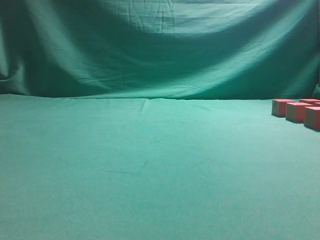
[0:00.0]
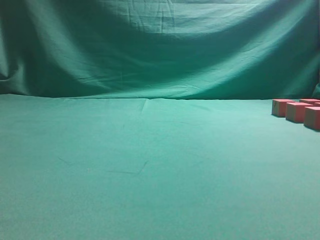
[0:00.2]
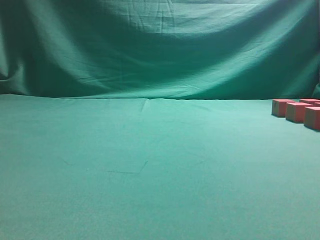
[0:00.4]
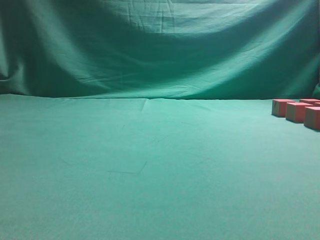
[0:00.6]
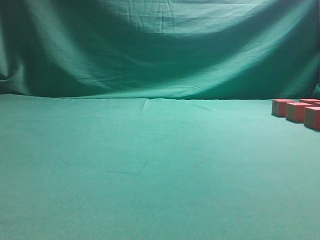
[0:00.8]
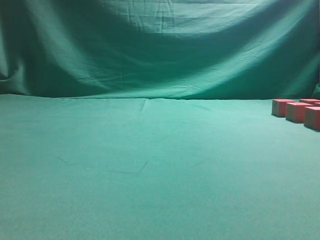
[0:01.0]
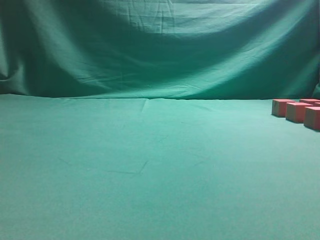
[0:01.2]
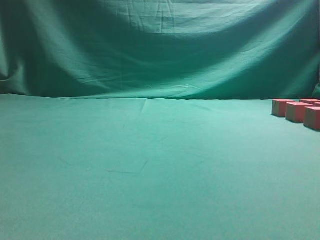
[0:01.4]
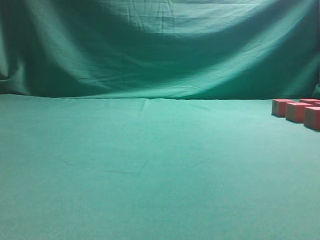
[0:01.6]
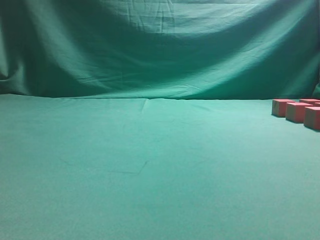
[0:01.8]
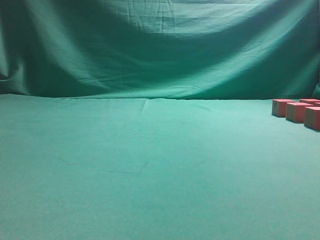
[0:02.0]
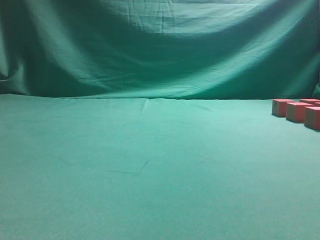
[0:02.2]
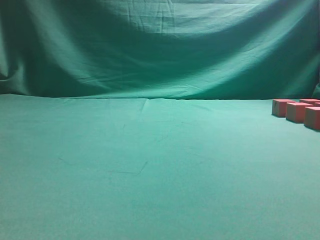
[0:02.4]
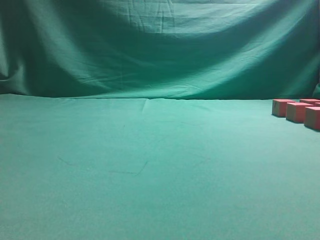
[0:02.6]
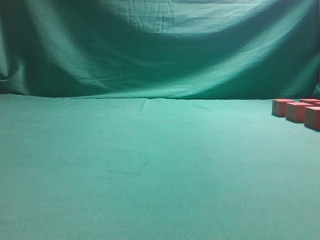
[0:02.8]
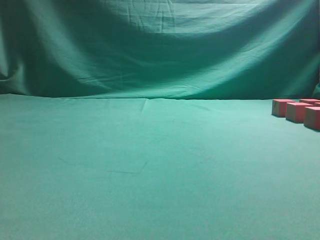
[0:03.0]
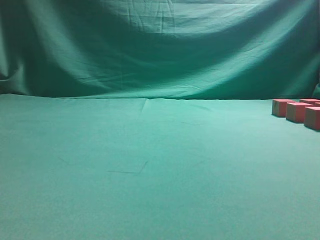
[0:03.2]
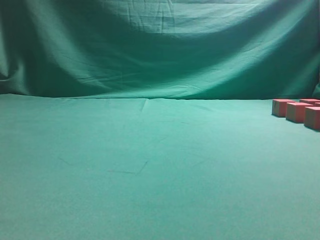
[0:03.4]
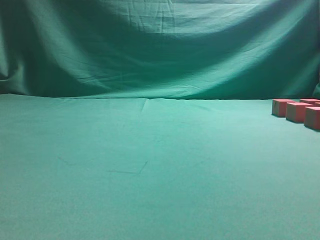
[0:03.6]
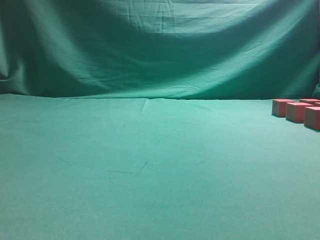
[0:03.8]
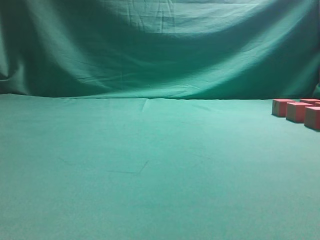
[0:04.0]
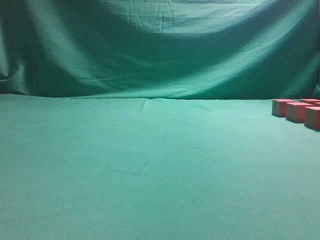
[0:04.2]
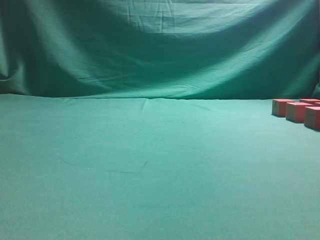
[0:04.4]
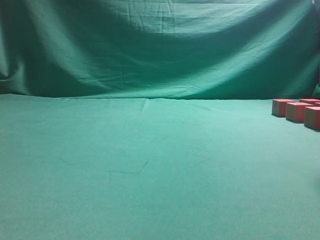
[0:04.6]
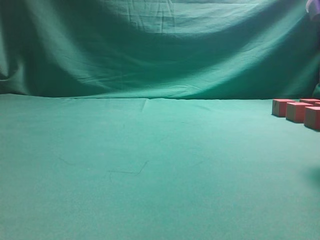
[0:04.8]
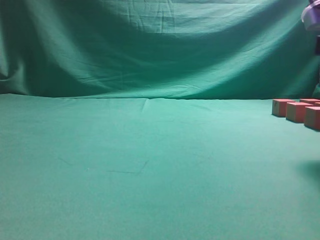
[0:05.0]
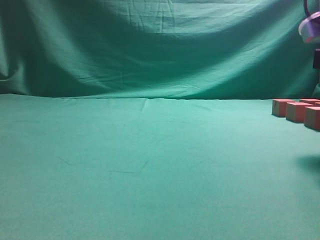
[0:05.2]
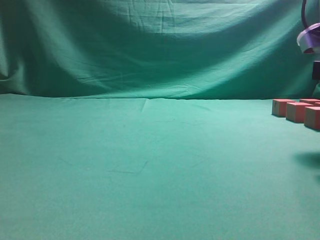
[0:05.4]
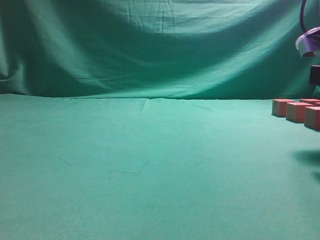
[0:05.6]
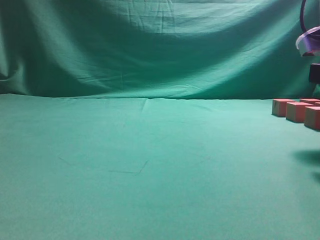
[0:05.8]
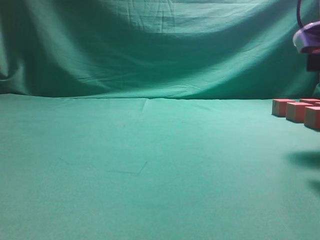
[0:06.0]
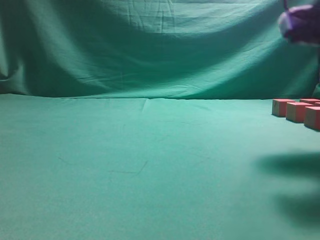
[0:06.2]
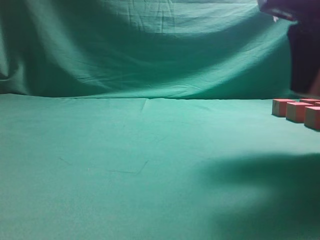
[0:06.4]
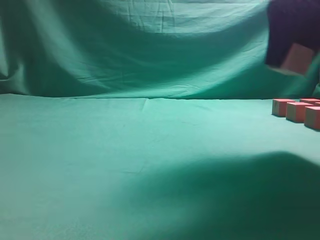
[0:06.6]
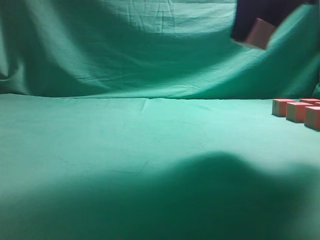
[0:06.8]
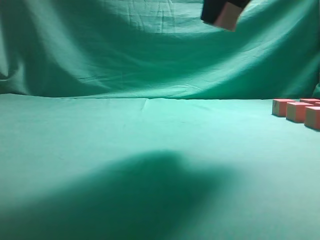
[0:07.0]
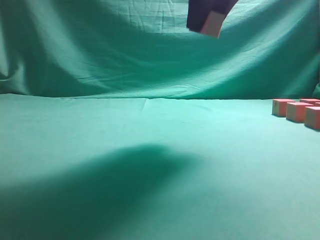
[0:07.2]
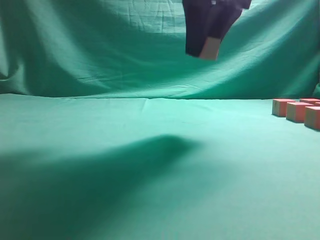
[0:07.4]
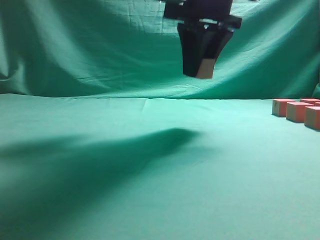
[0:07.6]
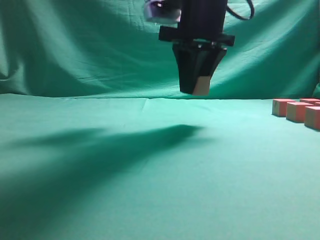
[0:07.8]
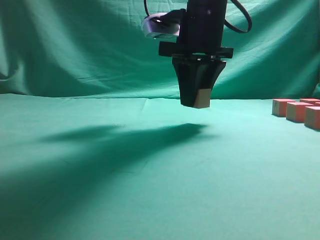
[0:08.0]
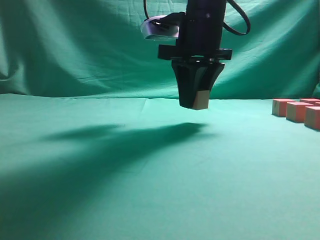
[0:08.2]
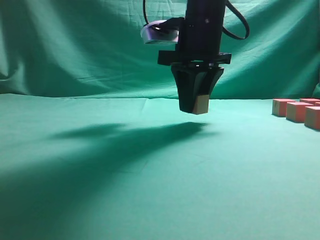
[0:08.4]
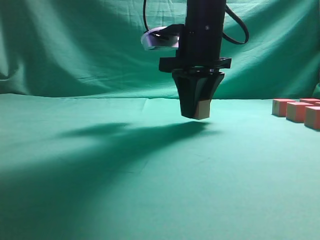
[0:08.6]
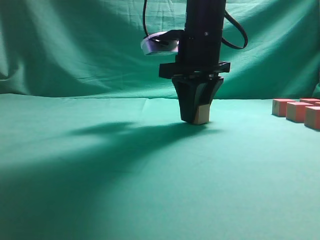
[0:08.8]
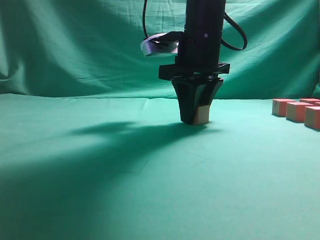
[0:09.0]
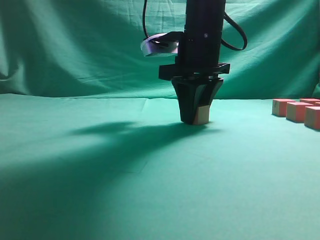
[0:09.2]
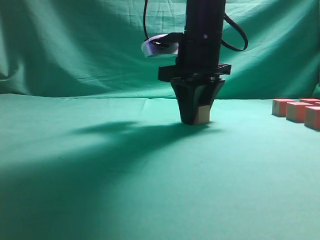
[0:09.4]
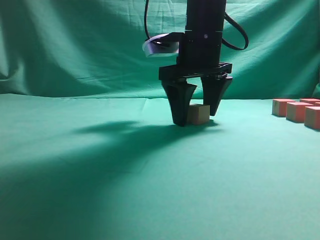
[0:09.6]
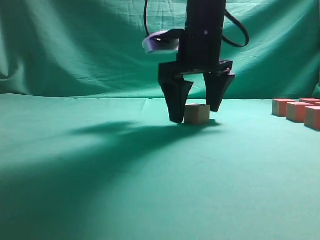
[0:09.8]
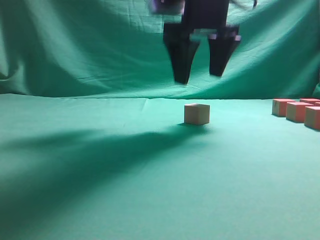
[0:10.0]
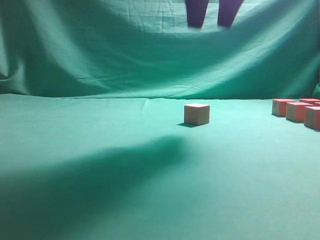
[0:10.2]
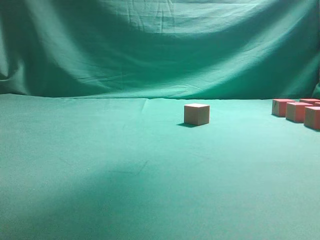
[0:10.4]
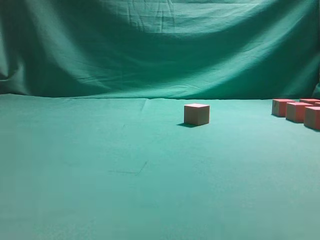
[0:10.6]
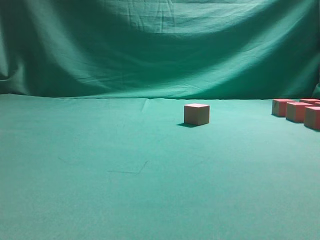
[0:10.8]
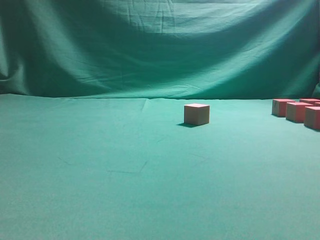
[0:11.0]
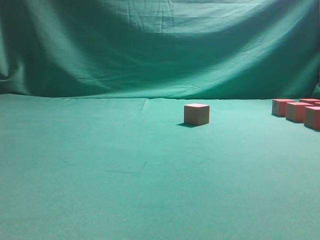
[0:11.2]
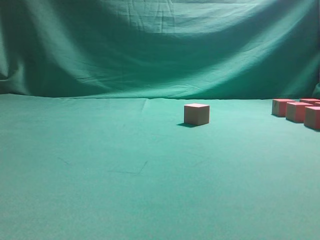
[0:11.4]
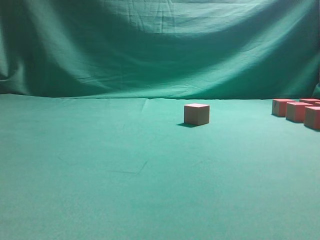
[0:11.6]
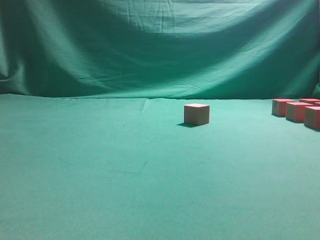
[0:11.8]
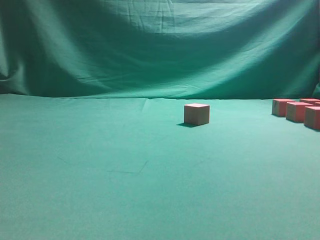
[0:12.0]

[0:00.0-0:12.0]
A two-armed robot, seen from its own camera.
Task of the whole recording: pick up the multiple cubes in two columns one by one and place them in another position on the table.
Step, 0:00.0 to 0:06.2: Pick up the block on the table.
Step, 0:06.6 to 0:10.0: Place the block at the correct position to assemble the letter S.
0:04.4 to 0:06.0: The right gripper heads downward, covering approximately 5 cm.
0:06.0 to 0:07.6: The right gripper heads to the left, forward and upward, covering roughly 20 cm.
0:07.6 to 0:09.0: The right gripper is displaced downward by some 5 cm.
0:09.0 to 0:10.4: The right gripper heads upward, covering approximately 20 cm, and opens up.
0:10.4 to 0:12.0: The right gripper is displaced to the right, downward and backward by some 25 cm.

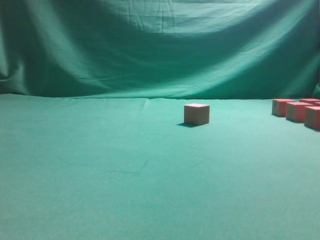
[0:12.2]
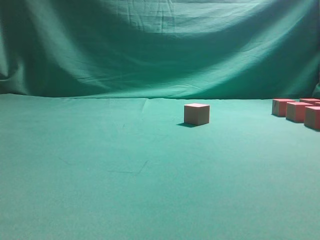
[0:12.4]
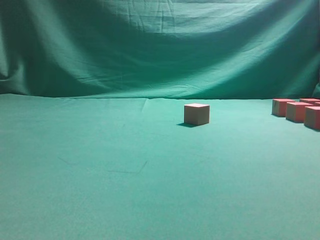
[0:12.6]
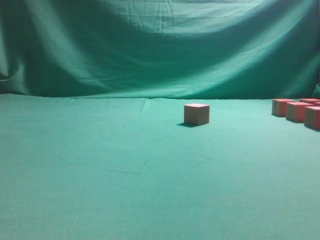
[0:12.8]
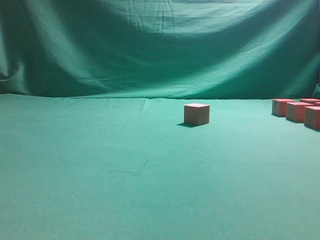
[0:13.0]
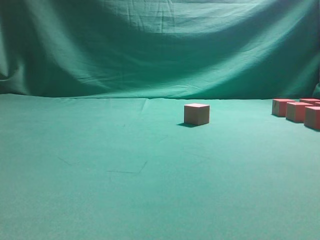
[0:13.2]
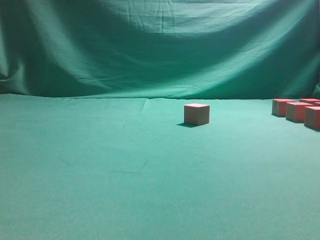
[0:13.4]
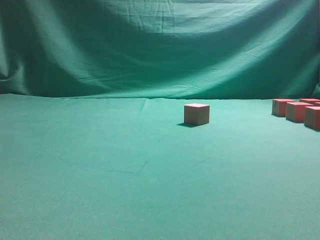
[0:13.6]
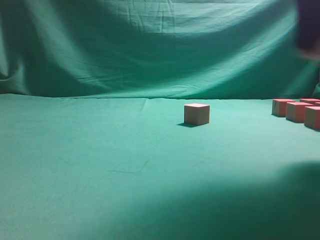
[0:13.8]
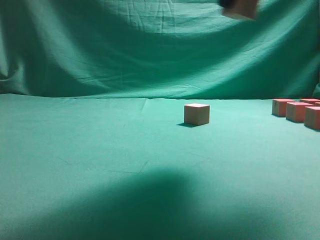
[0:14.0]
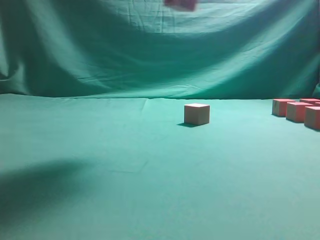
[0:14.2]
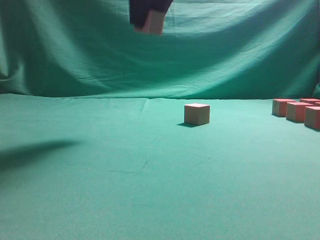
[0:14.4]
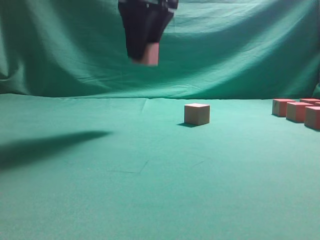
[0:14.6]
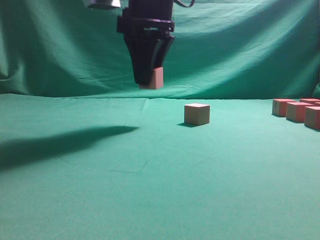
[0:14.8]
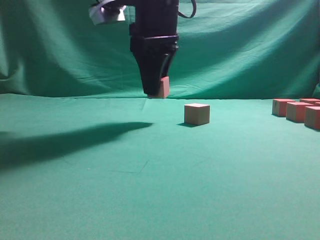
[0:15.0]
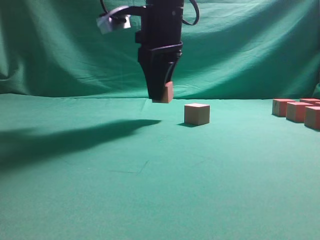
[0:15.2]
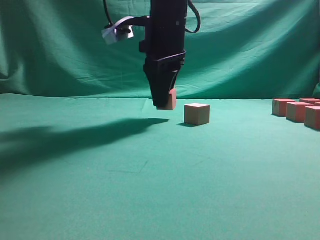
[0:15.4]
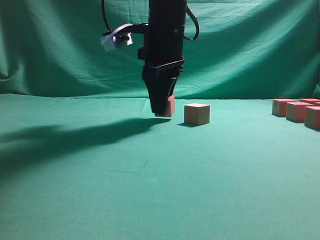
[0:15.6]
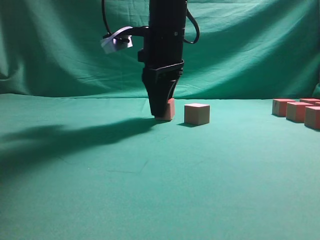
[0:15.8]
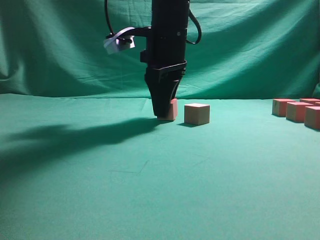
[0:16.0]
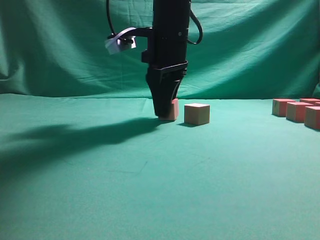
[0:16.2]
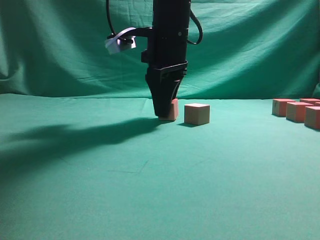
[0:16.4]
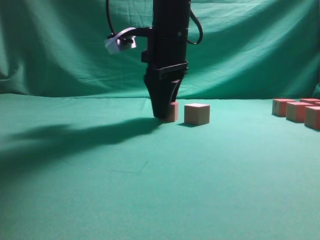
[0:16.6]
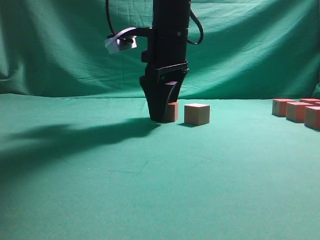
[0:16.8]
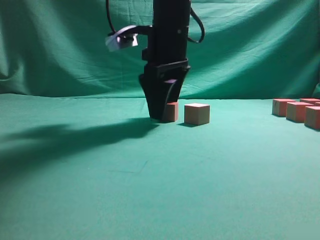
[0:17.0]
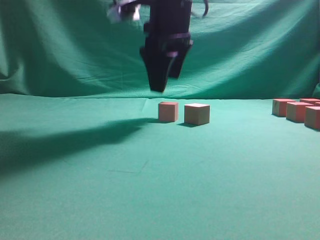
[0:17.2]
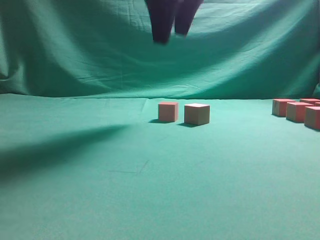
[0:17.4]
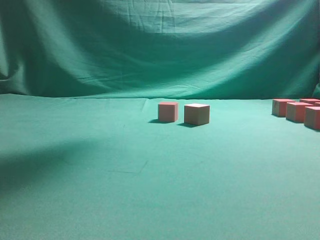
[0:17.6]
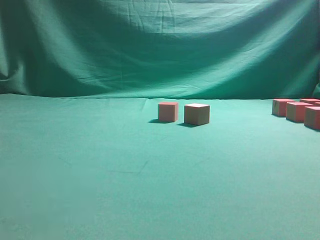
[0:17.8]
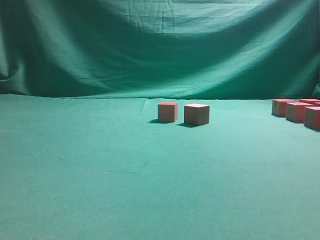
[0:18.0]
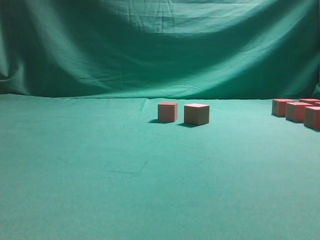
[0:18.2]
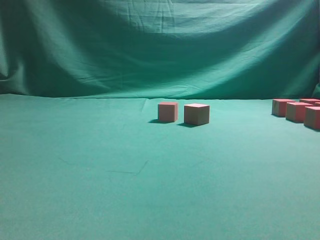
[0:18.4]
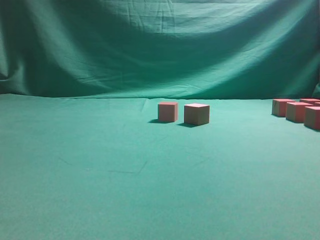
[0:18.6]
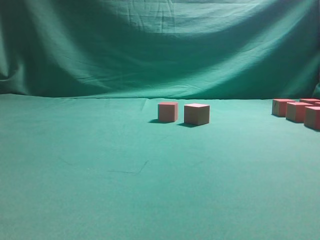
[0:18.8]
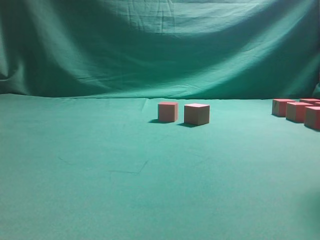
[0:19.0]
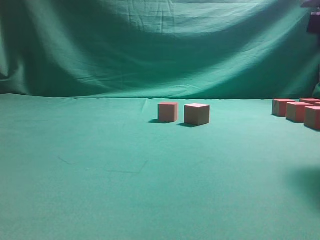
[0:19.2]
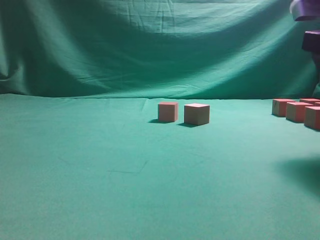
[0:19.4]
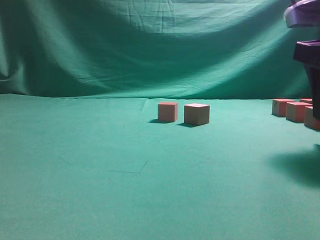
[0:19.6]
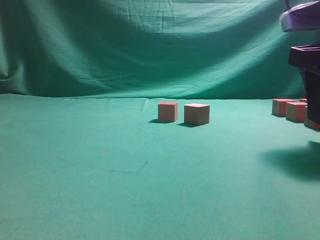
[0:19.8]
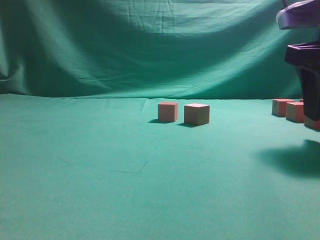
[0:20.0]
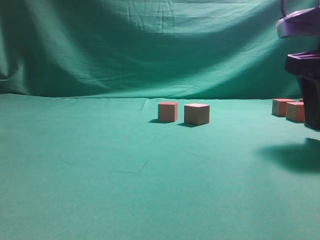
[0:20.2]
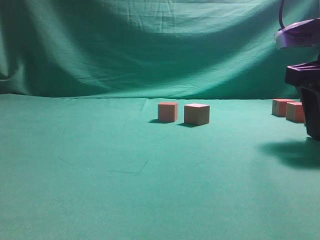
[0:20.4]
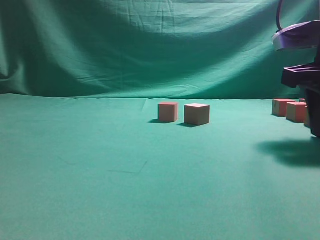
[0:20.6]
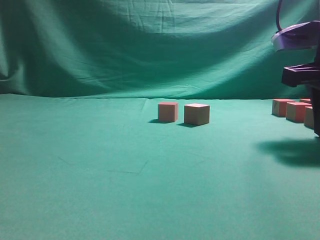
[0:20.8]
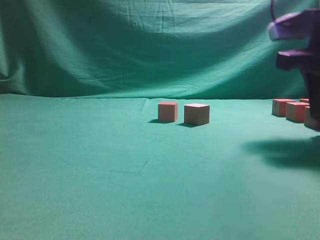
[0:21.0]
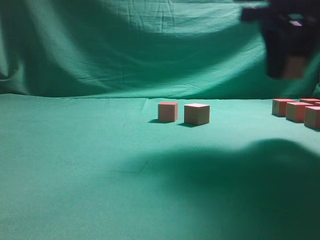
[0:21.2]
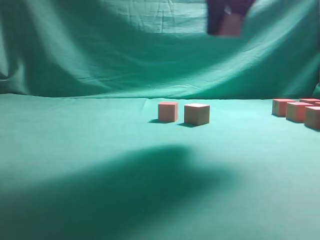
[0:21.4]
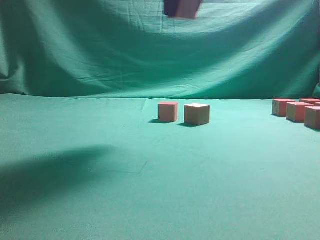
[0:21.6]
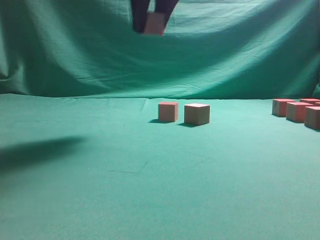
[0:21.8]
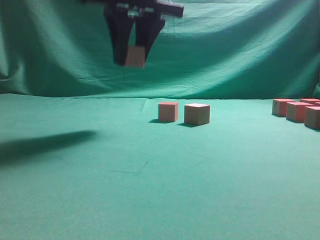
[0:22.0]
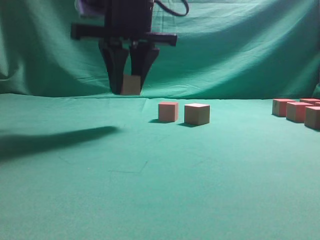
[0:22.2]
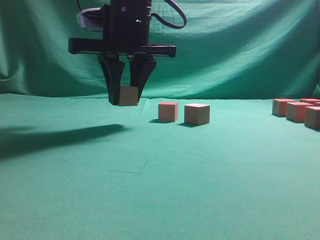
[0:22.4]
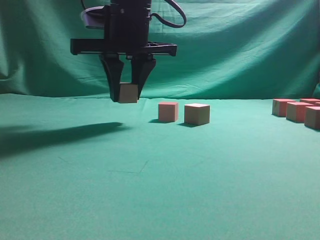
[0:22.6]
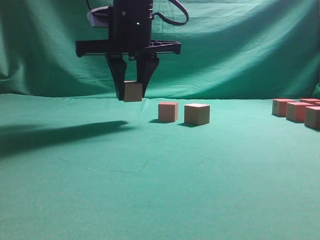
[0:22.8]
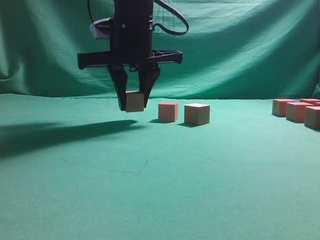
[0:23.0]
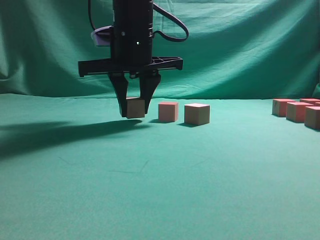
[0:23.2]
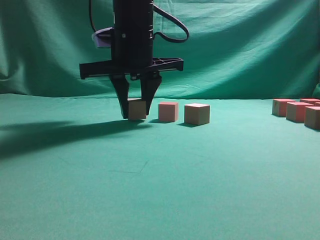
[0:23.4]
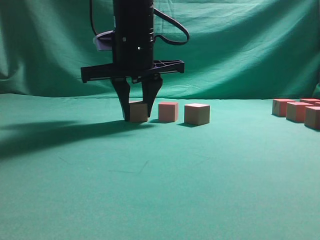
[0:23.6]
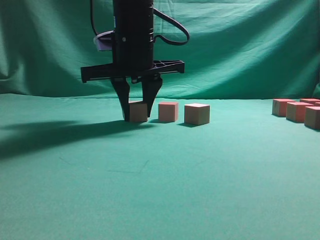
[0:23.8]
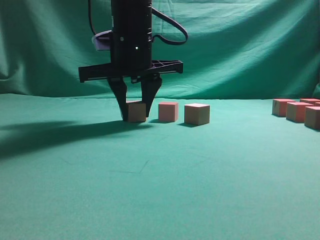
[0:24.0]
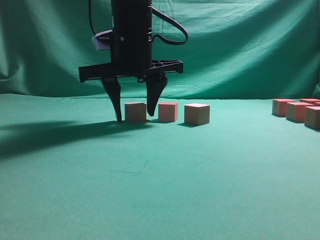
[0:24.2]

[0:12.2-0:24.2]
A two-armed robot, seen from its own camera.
Task of the whole recording: pick up the multiple cubes in two columns one by one and place them in another position on the table.
Step, 0:13.8 to 0:17.2: Place the block at the correct position to assemble the letter S.
Step, 0:17.6 to 0:21.0: Pick up the block on the table.
0:12.2 to 0:13.8: The right gripper heads to the left and upward, covering some 10 cm, and closes up.
0:13.8 to 0:15.2: The right gripper shifts about 25 cm to the left and forward.
0:15.2 to 0:16.6: There are only small adjustments of the grippers.
0:16.6 to 0:18.2: The right gripper heads upward, backward and to the right, covering approximately 35 cm.
0:18.2 to 0:19.8: The right gripper travels downward by some 25 cm.
0:19.8 to 0:21.2: The right gripper goes approximately 5 cm upward, and closes up.
0:21.2 to 0:22.6: The right gripper moves to the left, roughly 20 cm.
0:22.6 to 0:24.2: There are only small adjustments of the grippers.
